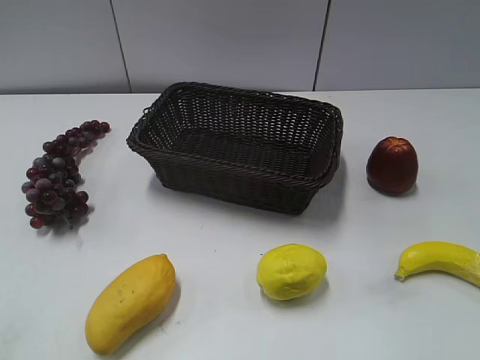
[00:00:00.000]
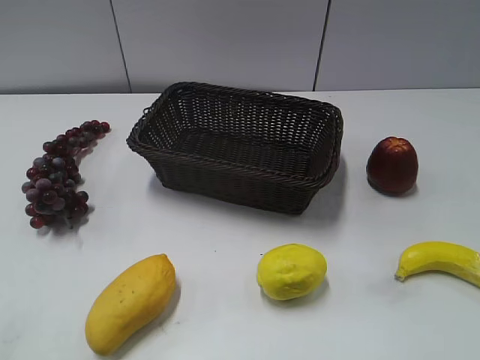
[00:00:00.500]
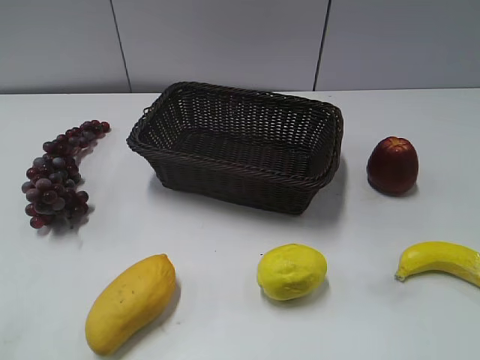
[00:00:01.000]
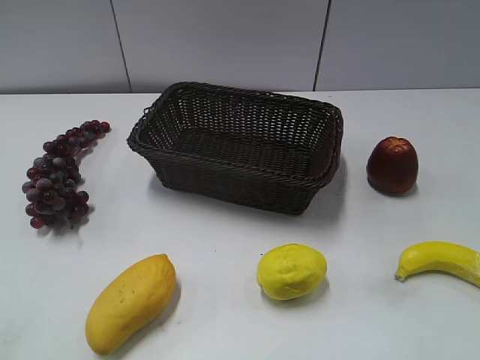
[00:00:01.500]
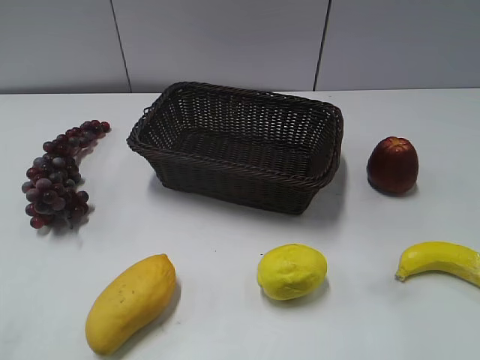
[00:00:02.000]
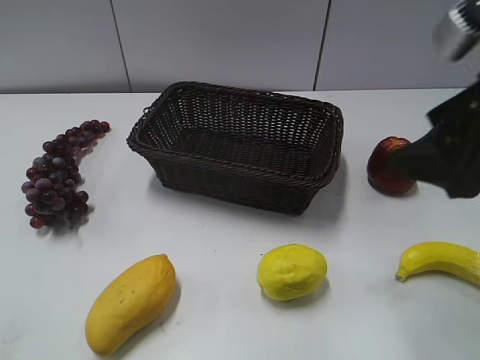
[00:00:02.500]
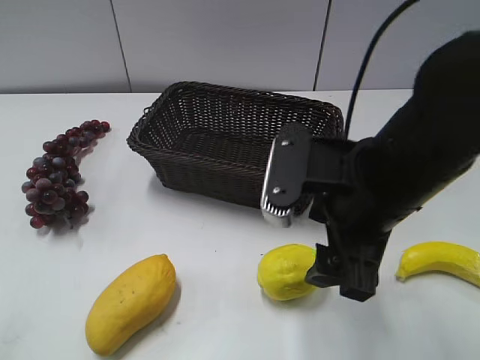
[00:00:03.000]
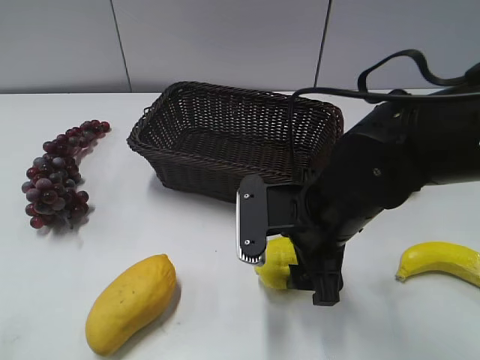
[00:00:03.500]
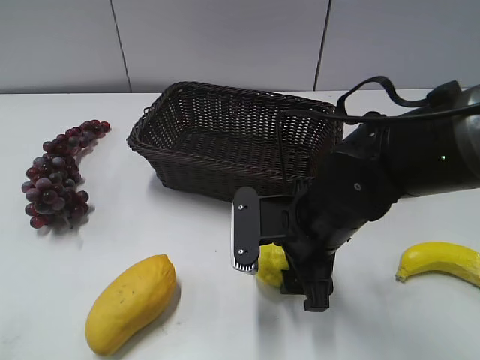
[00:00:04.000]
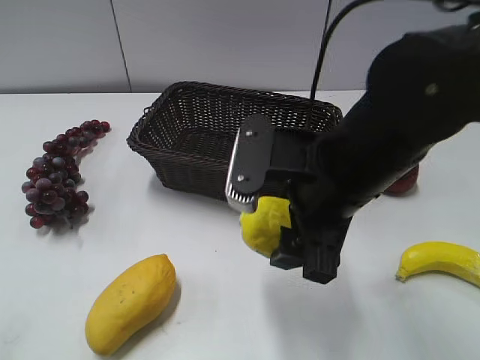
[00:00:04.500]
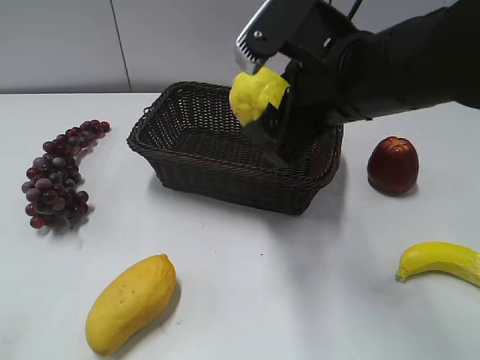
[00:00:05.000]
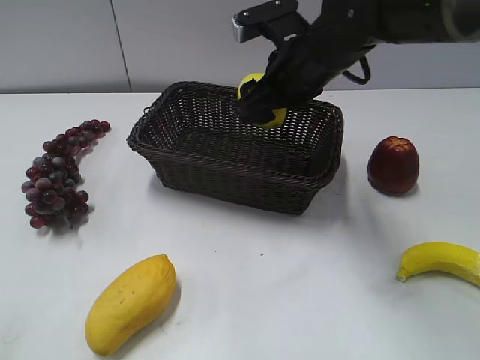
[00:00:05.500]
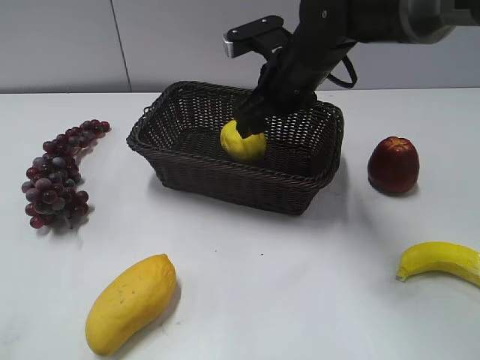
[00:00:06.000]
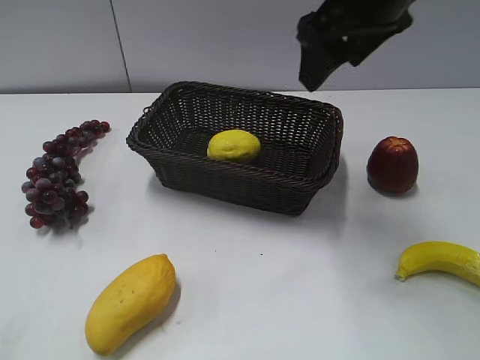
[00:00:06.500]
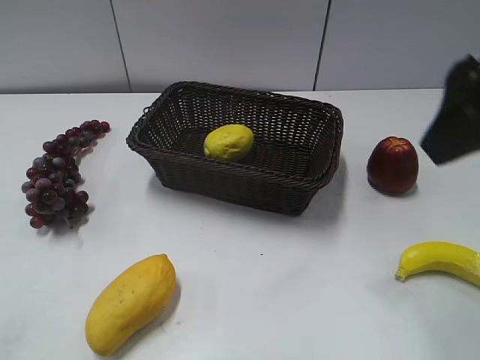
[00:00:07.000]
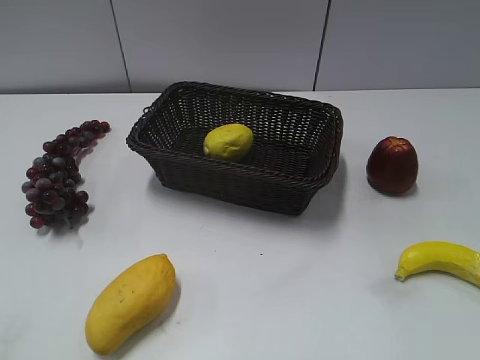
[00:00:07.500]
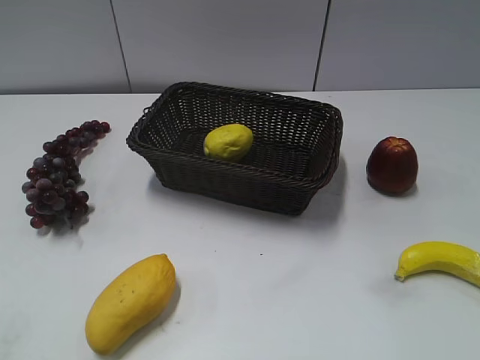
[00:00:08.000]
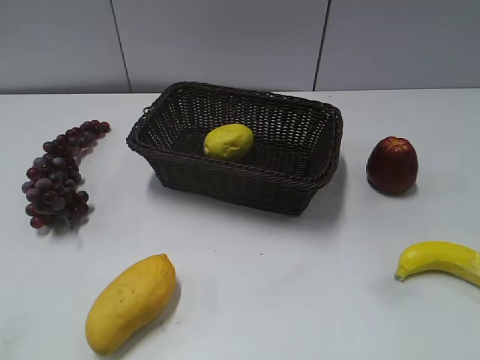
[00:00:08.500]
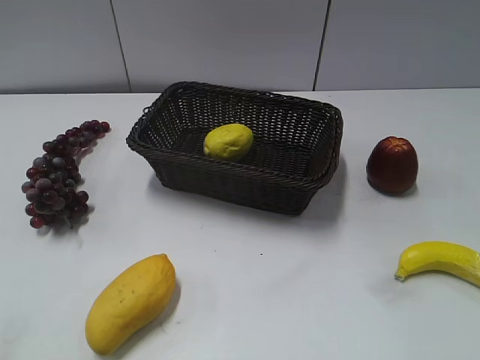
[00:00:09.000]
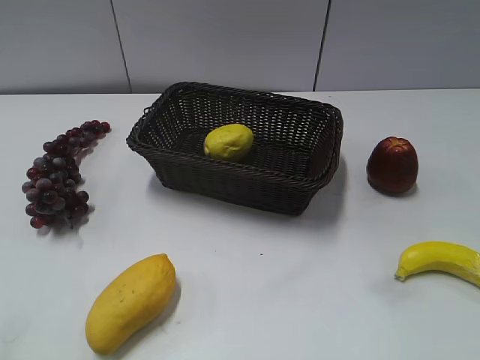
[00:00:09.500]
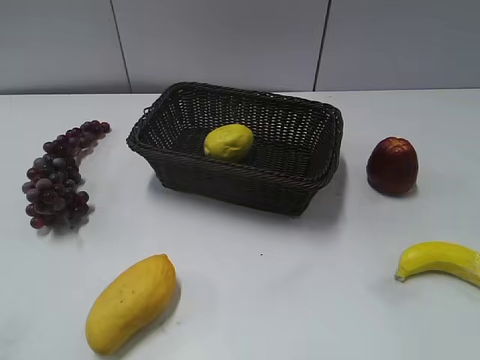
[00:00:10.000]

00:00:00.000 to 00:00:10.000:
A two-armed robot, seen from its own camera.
Step, 00:00:02.500 to 00:00:04.000: Grasp the lemon with right gripper.
Step, 00:00:04.500 to 00:00:05.500: Place the lemon in the basket with right gripper.
00:00:02.000 to 00:00:04.000: The right gripper travels to the left, downward and forward by approximately 30 cm.
00:00:04.000 to 00:00:06.000: The right gripper moves forward and upward, about 20 cm.
00:00:06.000 to 00:00:08.000: The right gripper travels backward and to the right by about 40 cm.
